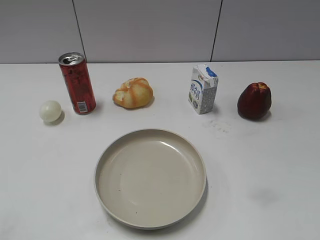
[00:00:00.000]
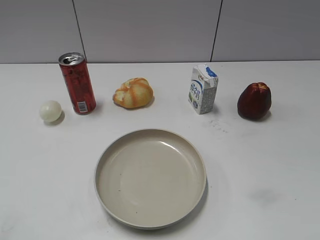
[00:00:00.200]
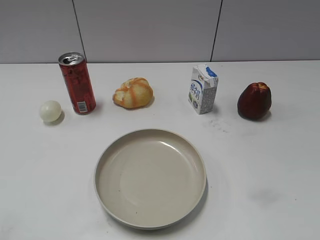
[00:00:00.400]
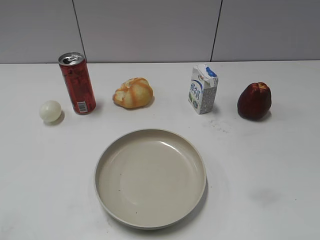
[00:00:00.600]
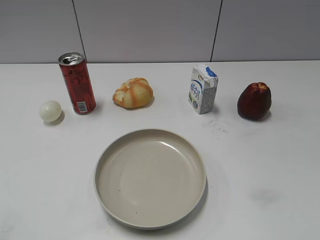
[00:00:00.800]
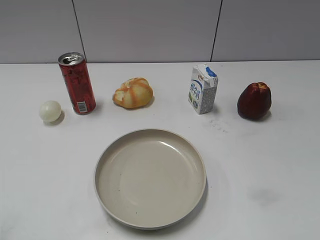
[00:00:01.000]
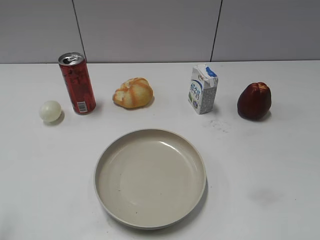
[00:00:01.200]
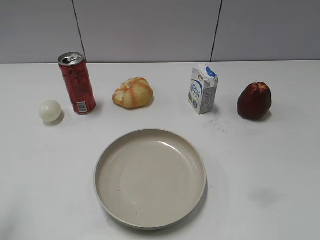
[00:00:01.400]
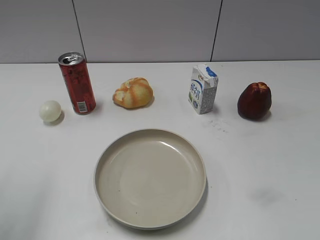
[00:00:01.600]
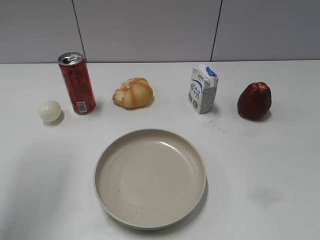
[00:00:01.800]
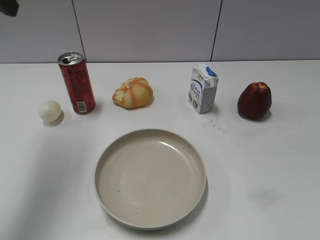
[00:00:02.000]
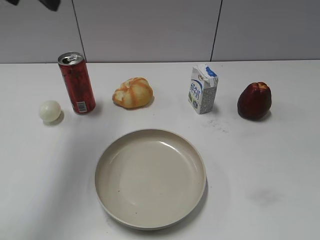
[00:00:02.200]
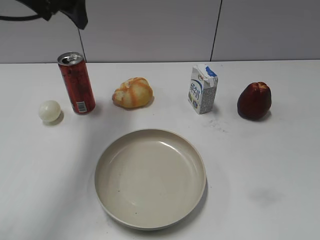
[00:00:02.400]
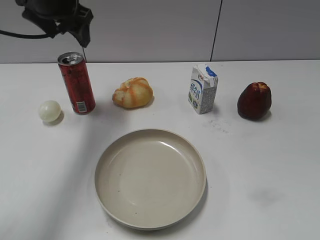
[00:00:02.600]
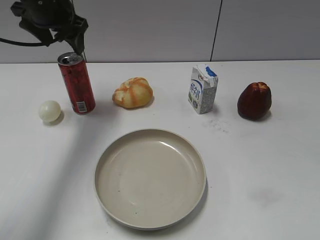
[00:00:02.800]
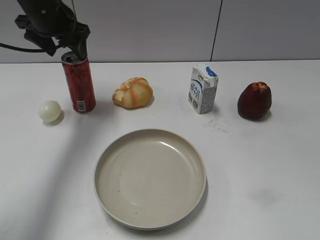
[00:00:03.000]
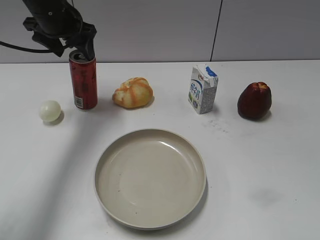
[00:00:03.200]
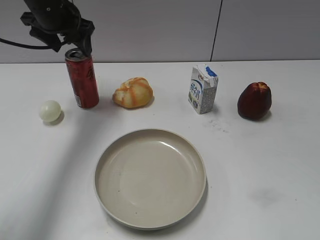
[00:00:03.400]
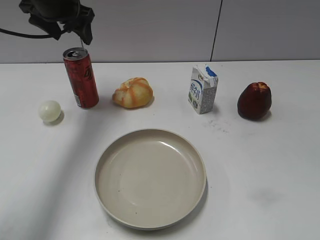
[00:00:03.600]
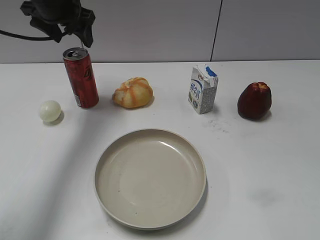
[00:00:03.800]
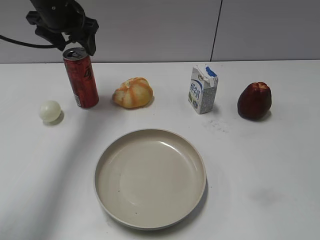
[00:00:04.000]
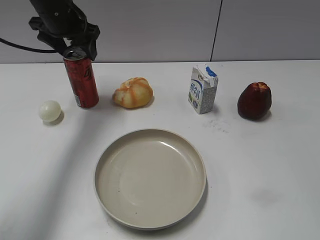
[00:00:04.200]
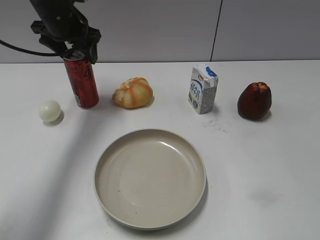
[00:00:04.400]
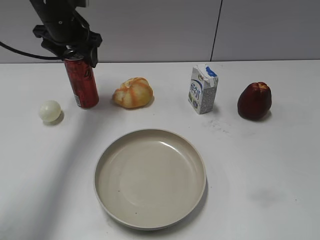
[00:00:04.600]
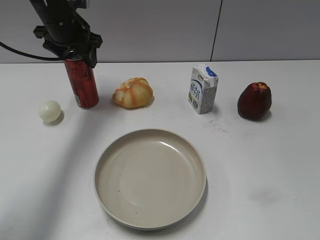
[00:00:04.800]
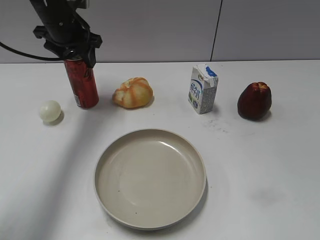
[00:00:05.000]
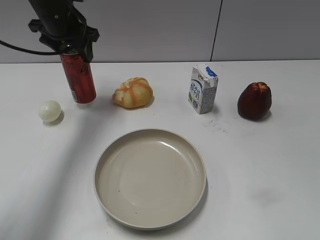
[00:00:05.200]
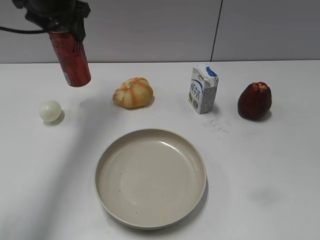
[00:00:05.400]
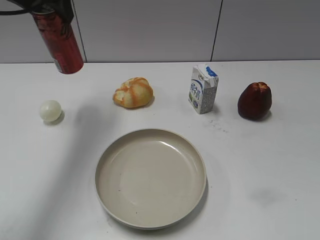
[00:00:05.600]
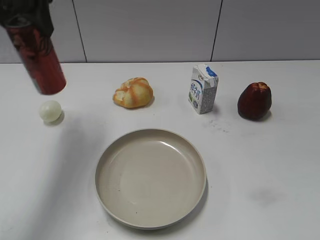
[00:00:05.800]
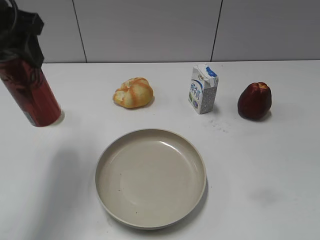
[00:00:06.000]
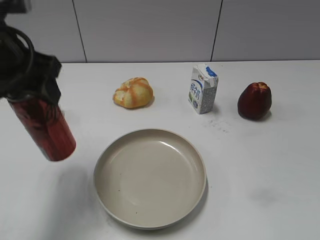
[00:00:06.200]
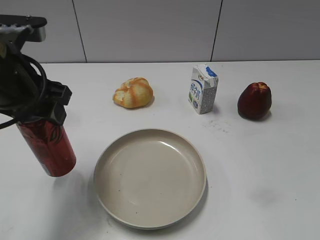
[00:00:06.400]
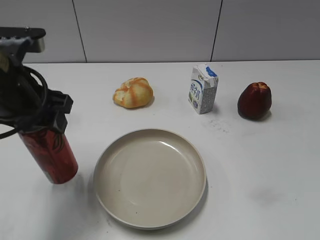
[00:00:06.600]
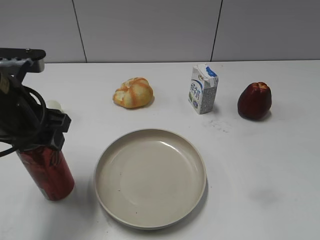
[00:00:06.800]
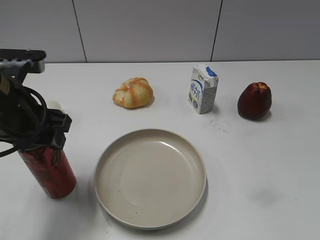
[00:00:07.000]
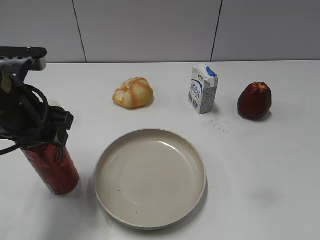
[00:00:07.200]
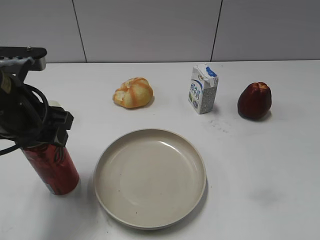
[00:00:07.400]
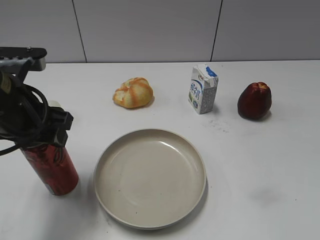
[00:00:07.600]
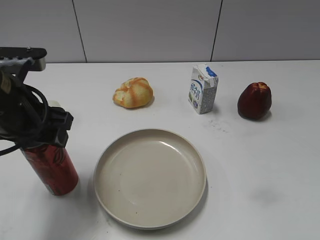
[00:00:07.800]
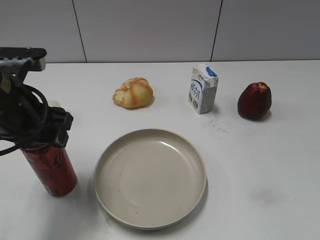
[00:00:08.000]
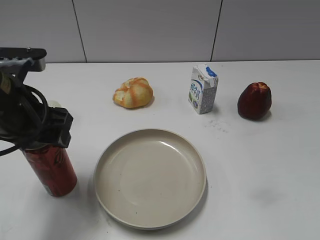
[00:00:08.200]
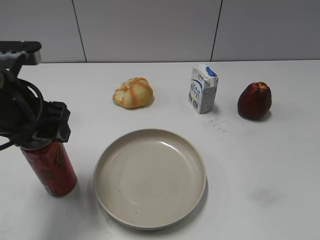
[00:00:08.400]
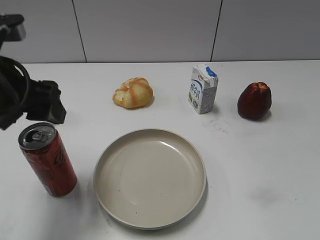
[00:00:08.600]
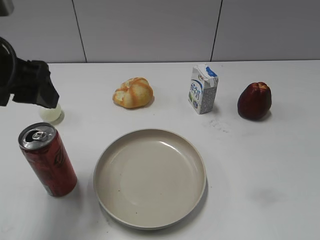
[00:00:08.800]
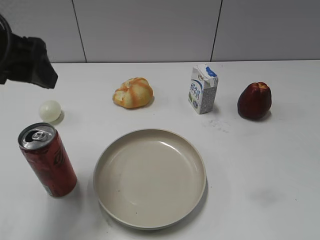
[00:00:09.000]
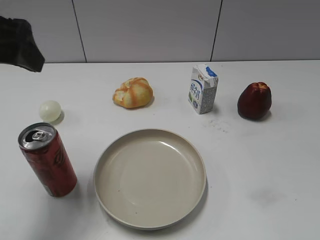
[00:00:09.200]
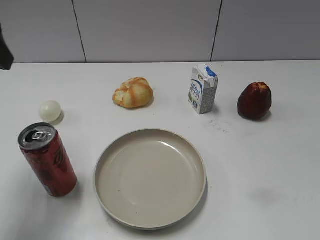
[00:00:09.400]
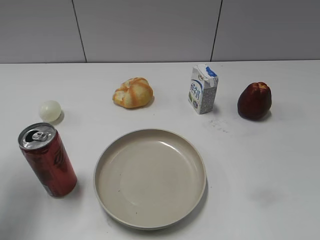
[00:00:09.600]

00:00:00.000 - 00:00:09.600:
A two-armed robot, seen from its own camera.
Step, 00:00:00.600 - 00:00:04.800: Grasp the cola with left gripper.
Step, 00:00:05.200 - 00:00:08.600: Place the cola on the table with left gripper.
00:00:01.600 - 00:00:03.200: The left gripper goes roughly 35 cm forward, to the right and downward.
00:00:03.200 - 00:00:04.800: The left gripper closes up.
00:00:04.800 - 00:00:06.400: The left gripper travels backward by about 25 cm.
00:00:06.400 - 00:00:08.000: There are only small adjustments of the grippers.
00:00:08.000 - 00:00:09.600: The left gripper heads upward and to the left, covering roughly 15 cm, and opens its fingers.

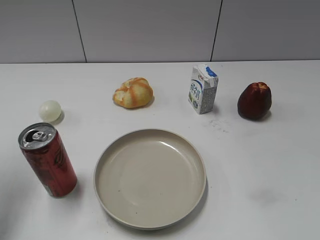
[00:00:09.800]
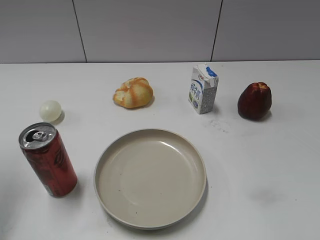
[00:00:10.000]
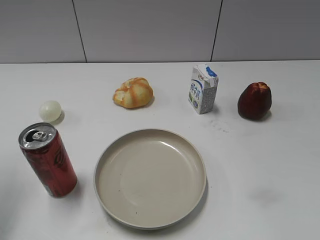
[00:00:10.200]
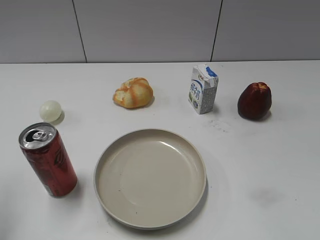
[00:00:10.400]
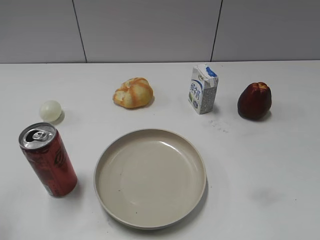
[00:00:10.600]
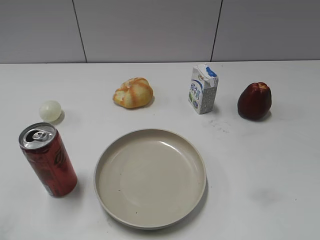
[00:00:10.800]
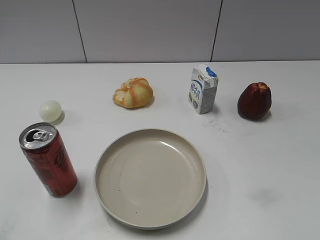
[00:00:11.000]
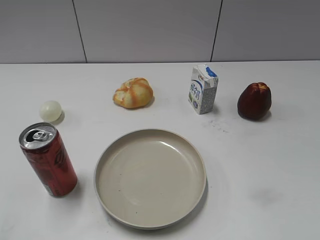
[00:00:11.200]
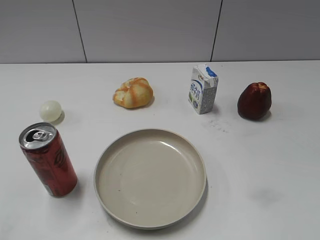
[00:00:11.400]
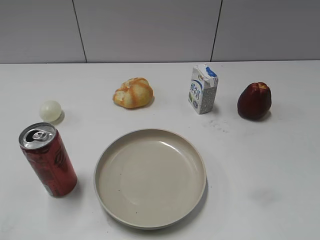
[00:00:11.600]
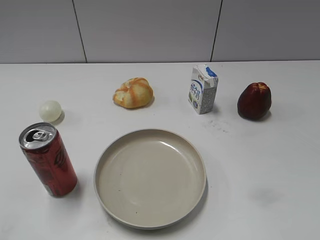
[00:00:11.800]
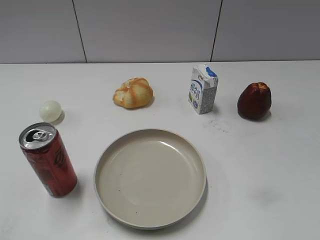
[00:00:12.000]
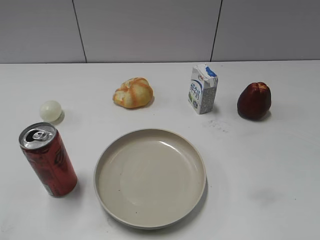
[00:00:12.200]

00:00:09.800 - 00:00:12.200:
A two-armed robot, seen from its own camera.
00:00:09.800 - 00:00:11.000: The left gripper travels backward and downward by some 20 cm.

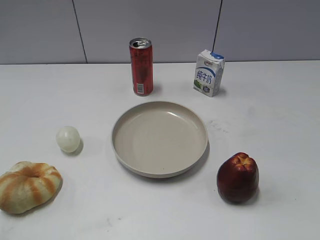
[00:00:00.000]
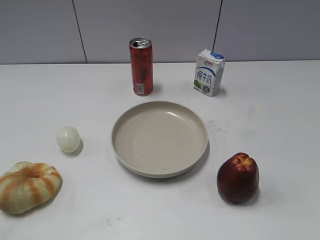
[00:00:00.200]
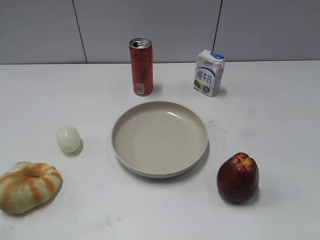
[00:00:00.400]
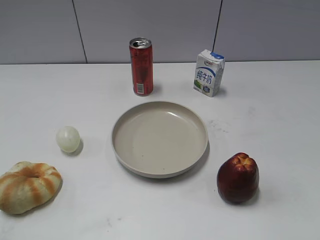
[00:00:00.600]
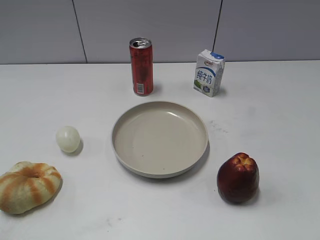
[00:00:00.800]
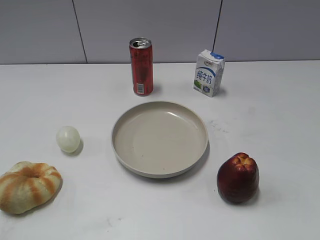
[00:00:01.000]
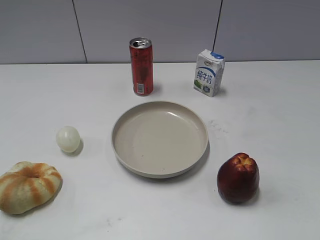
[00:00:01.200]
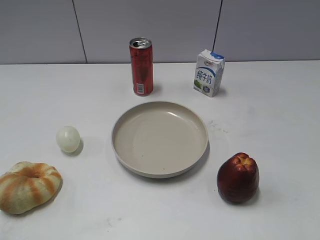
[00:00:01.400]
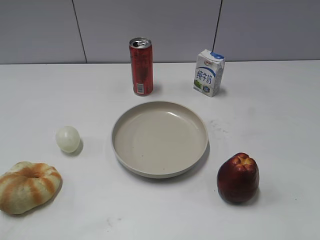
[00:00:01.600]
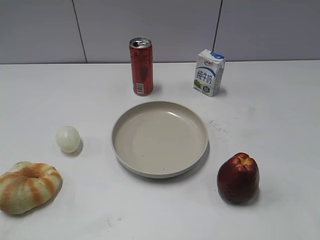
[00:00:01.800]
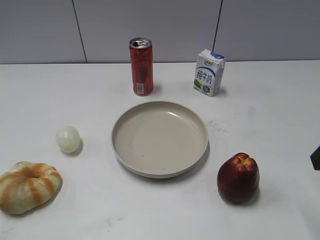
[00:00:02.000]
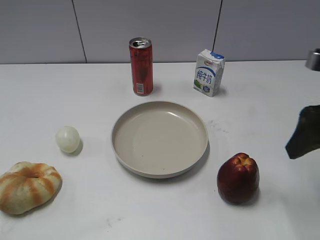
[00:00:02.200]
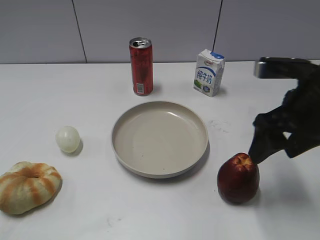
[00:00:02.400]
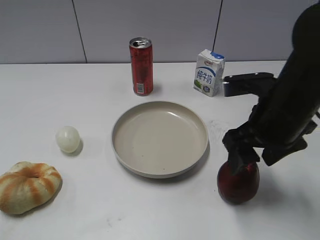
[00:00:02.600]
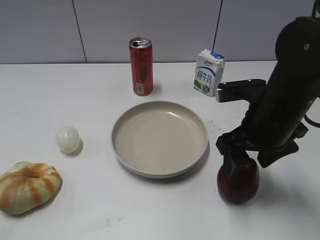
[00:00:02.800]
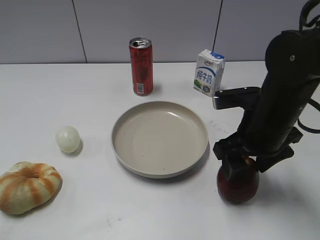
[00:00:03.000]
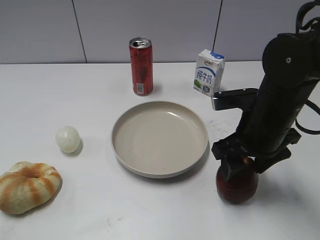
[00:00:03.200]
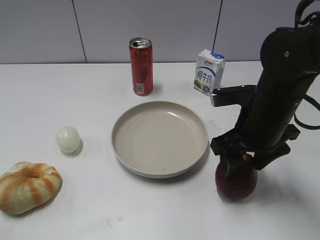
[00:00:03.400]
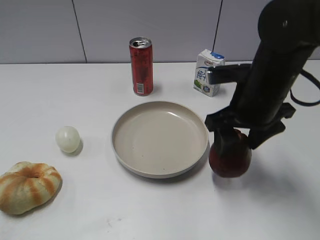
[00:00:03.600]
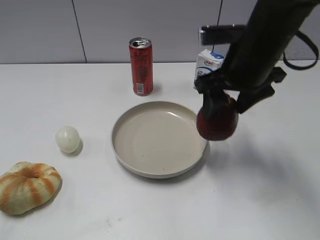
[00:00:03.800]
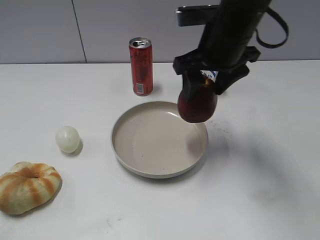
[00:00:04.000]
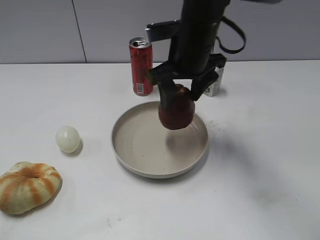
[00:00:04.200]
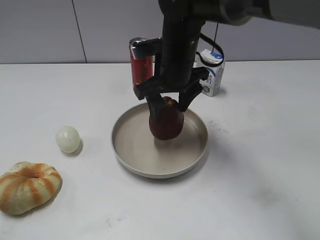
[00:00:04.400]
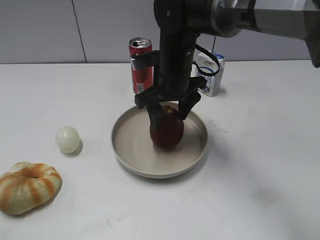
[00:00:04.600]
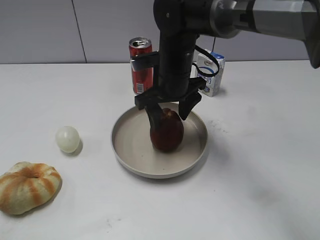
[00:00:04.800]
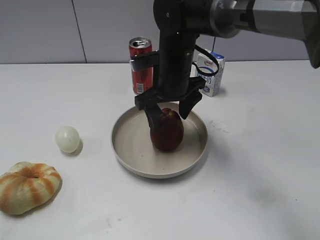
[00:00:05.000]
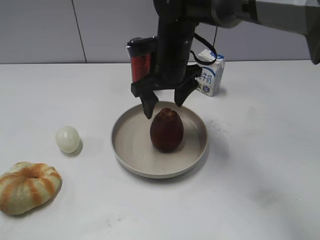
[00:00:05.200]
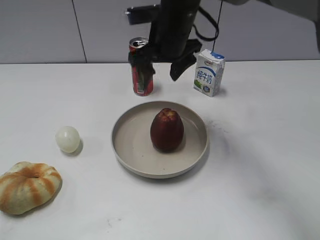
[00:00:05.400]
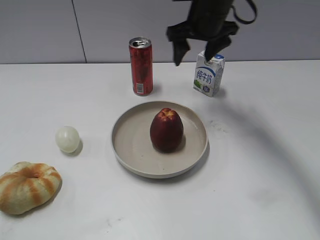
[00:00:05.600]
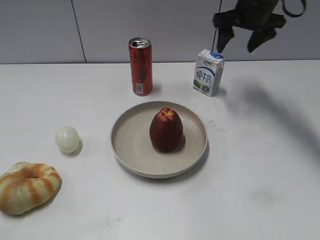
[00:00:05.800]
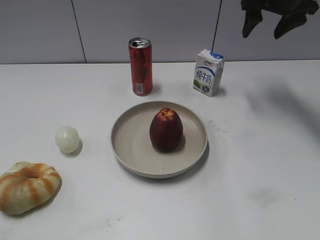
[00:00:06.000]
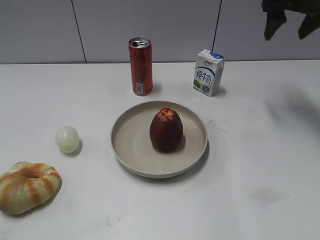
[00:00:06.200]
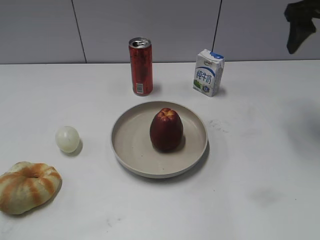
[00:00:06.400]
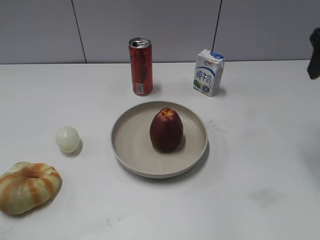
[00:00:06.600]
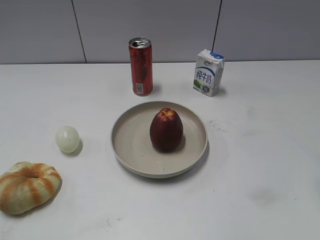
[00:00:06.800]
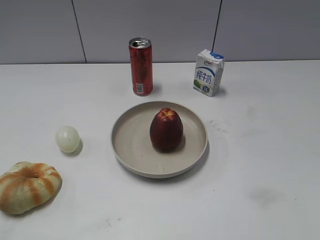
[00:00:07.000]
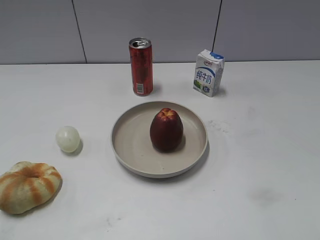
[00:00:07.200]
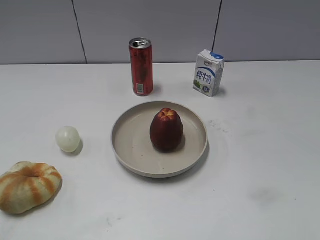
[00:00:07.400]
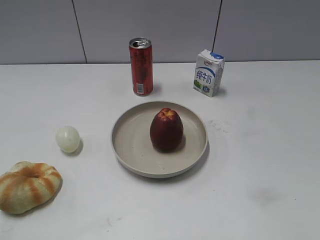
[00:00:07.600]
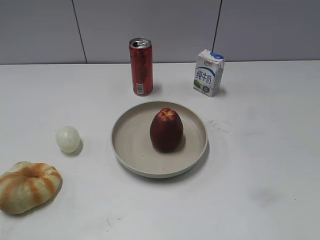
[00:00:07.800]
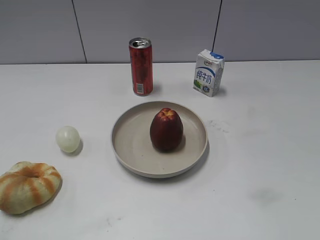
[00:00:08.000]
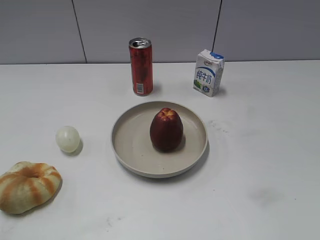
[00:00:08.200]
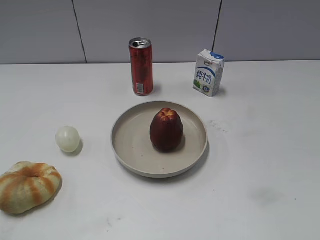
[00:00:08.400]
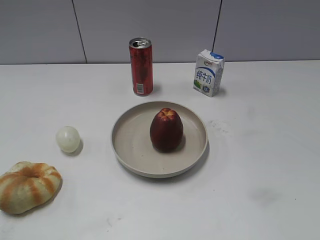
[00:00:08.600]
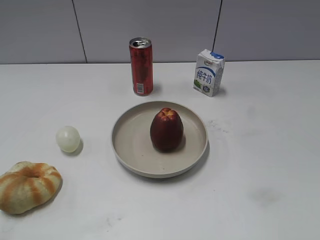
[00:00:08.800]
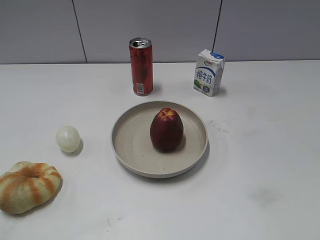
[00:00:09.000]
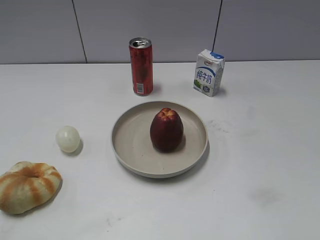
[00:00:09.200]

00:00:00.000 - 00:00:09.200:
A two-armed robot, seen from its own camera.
Step, 00:00:02.000 - 00:00:03.200: Grasp the apple with right gripper.
Step, 00:00:03.400 - 00:00:05.200: Place the apple on the plate with right gripper.
00:00:01.600 - 00:00:03.000: The right gripper travels forward, to the left and downward by some 25 cm.
00:00:03.000 - 00:00:04.600: The right gripper moves to the left and forward, about 15 cm, and closes.
00:00:04.600 - 00:00:06.200: The right gripper moves to the right and upward, some 25 cm, and opens.
00:00:06.200 - 00:00:07.600: The right gripper goes some 40 cm backward.
